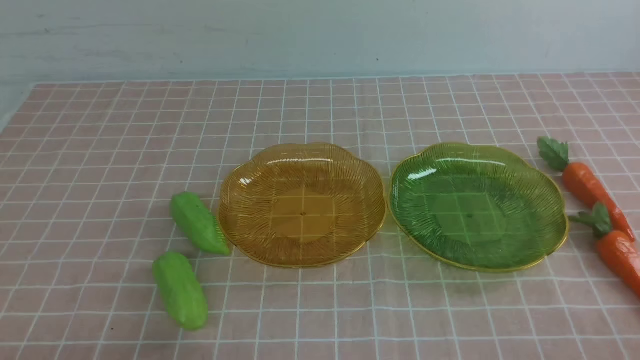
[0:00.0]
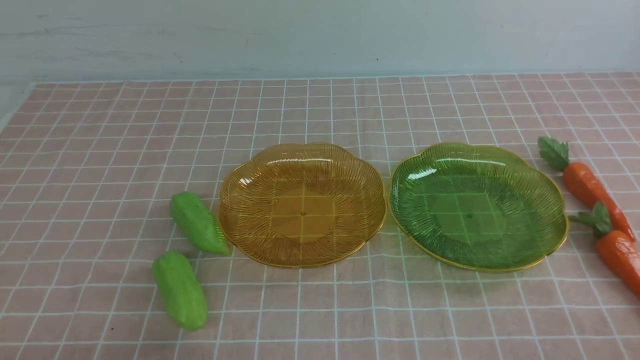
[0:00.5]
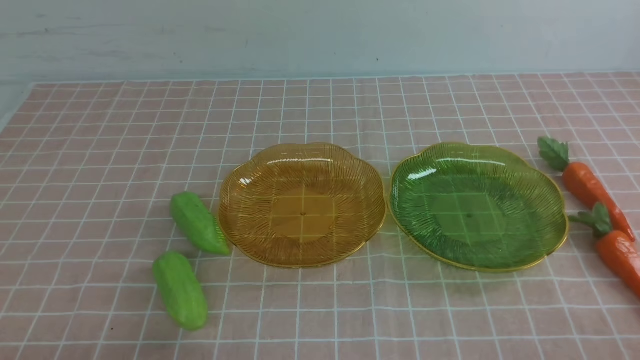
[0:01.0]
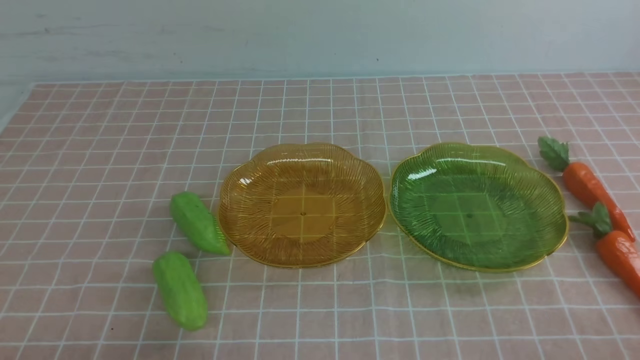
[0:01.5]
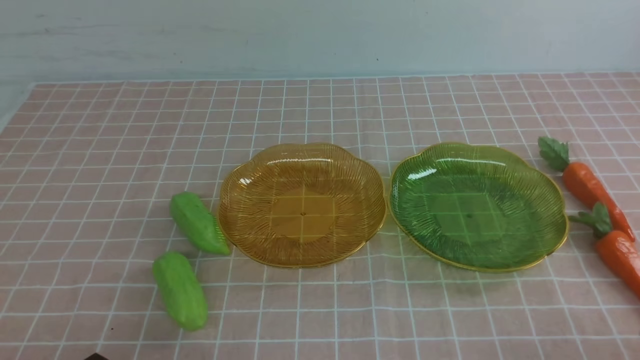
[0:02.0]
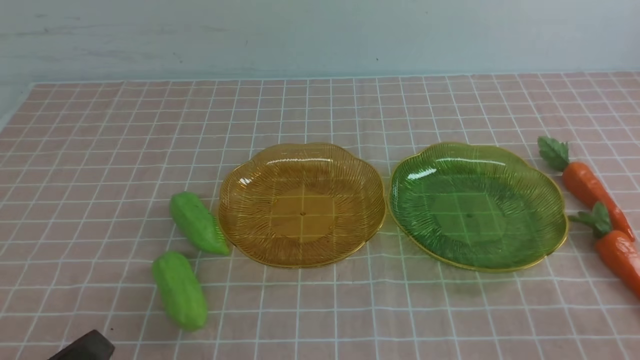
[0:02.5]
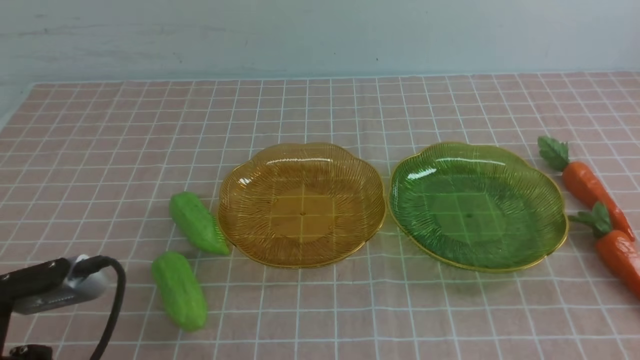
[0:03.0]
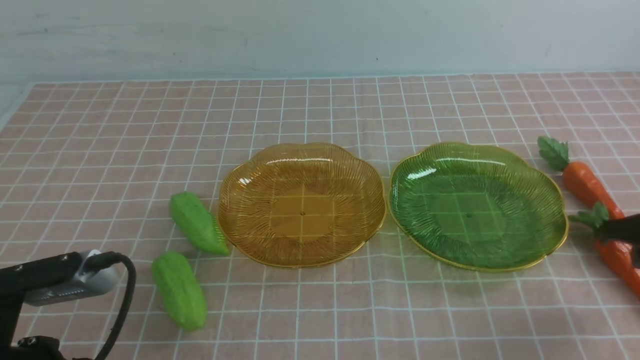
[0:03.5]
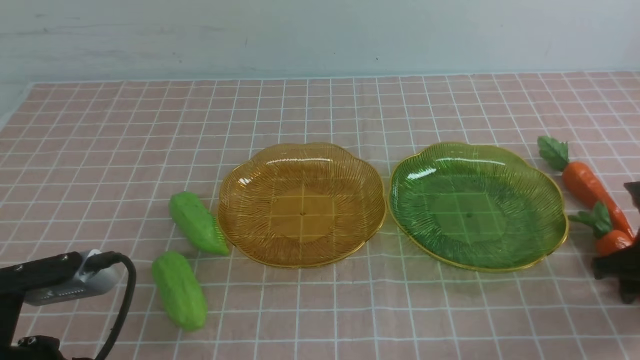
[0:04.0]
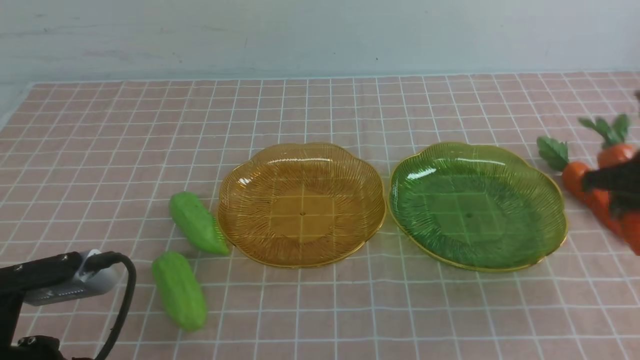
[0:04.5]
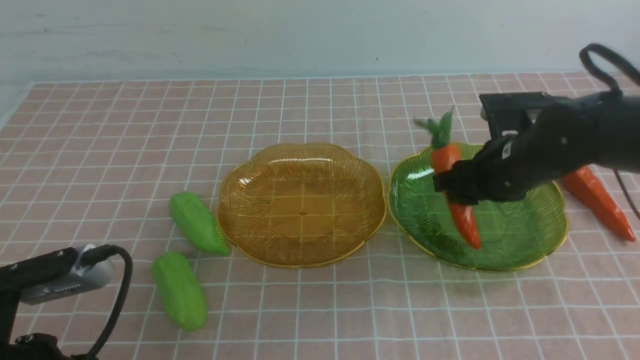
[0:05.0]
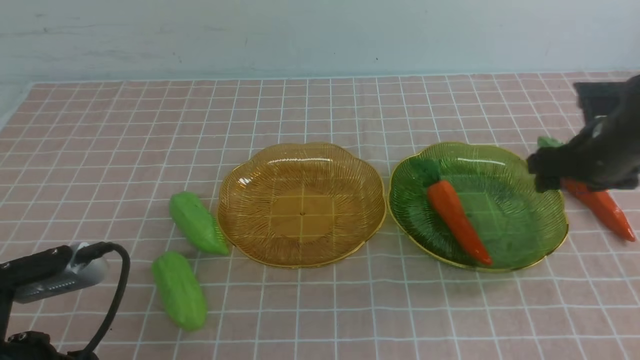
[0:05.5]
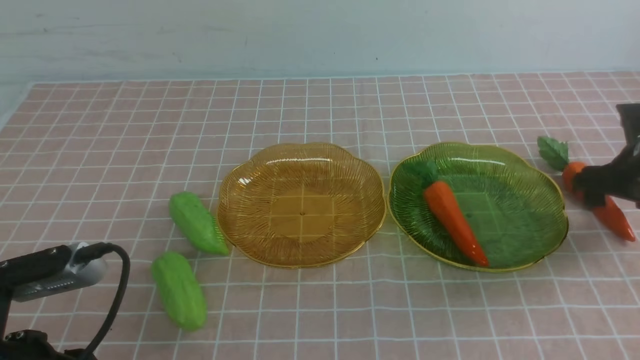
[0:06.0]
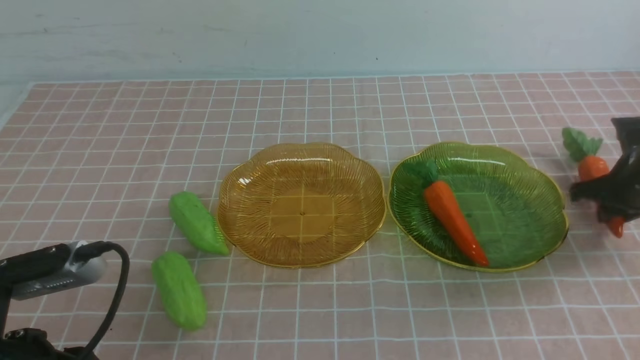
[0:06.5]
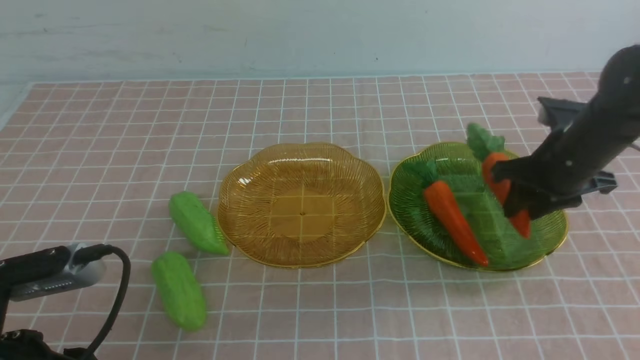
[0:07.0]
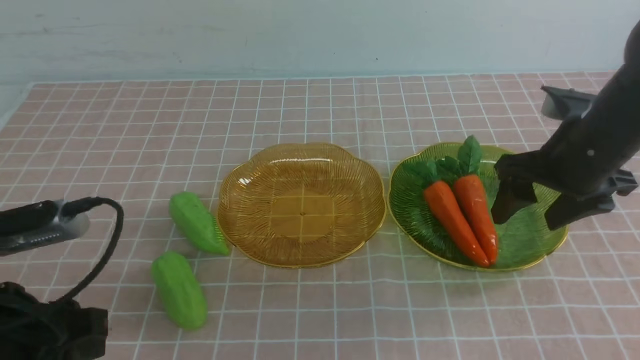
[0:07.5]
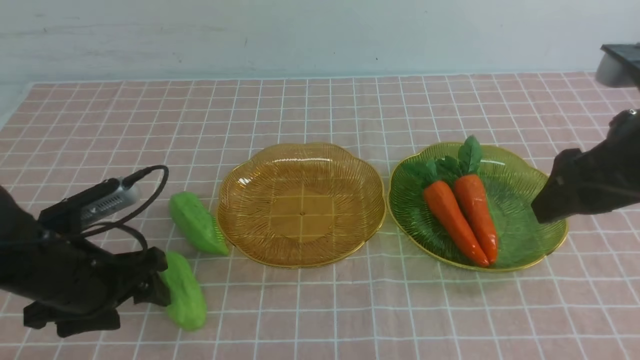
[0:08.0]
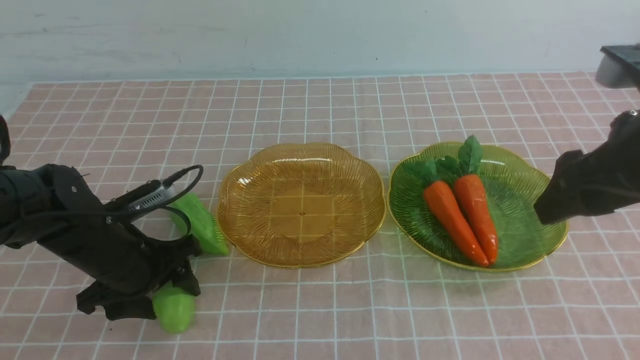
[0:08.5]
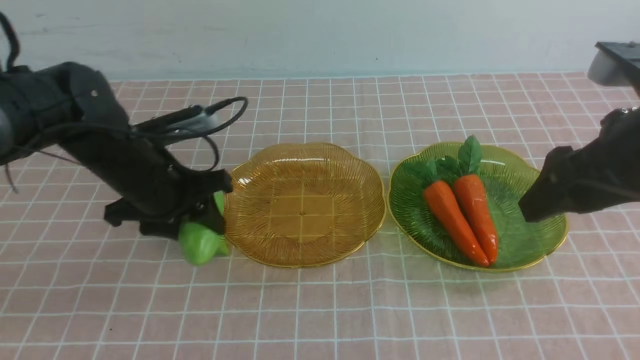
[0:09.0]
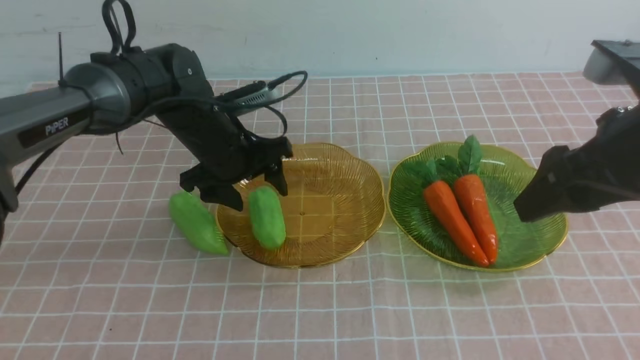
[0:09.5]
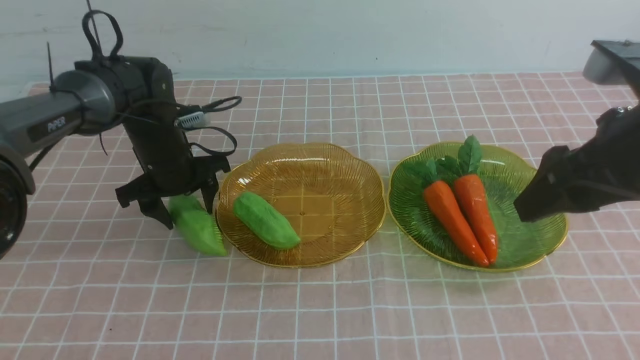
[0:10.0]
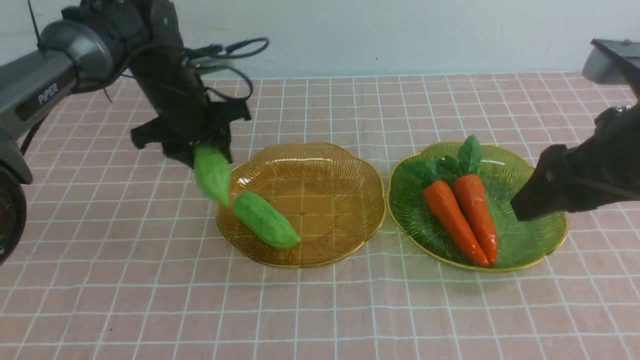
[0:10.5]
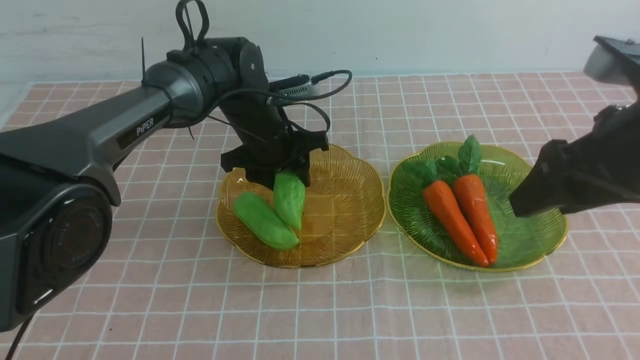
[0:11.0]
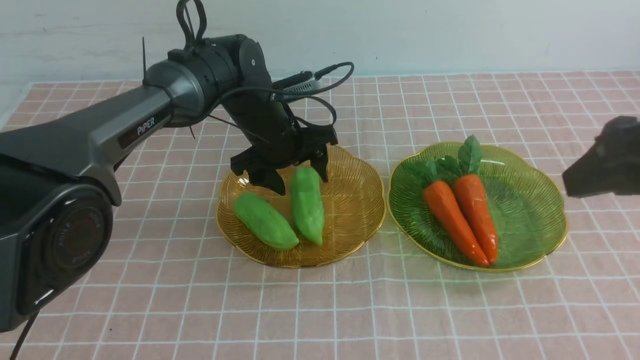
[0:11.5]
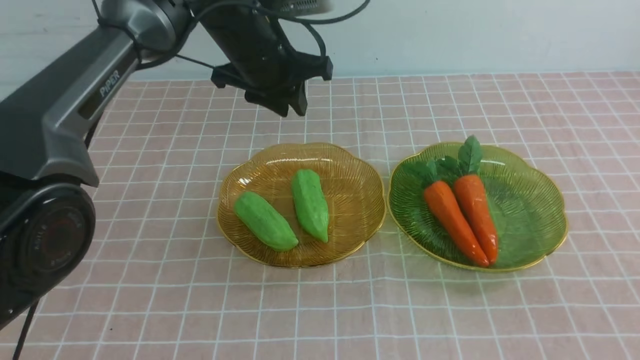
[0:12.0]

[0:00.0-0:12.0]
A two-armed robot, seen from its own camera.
Step, 0:00.0 to 0:07.0: use the right arm to grab a carrot and put it into the right plate.
Step, 0:07.5 to 0:11.5: use the left arm to grab a chayote and put it into the left plate.
0:02.0 to 0:04.0: The left gripper is displaced upward and forward by about 10 cm. The right gripper moves forward, some 25 cm, and opens.
0:04.0 to 0:06.0: The right gripper goes left and right, roughly 15 cm each way, reversing 2 times, and opens and closes again.
0:06.0 to 0:08.0: The right gripper shifts approximately 20 cm backward, upward and to the left, and opens its fingers. The left gripper is displaced forward by about 20 cm, and opens, then closes again.
0:08.0 to 0:10.0: The left gripper travels forward and to the right by about 20 cm.
0:10.0 to 0:12.0: The left gripper moves upward, about 15 cm, and closes up. The right gripper moves backward and downward, approximately 20 cm, and closes.

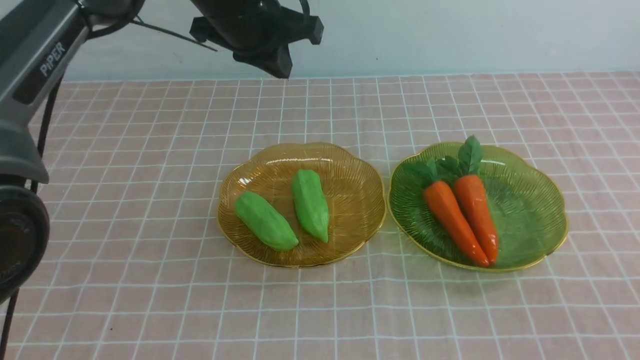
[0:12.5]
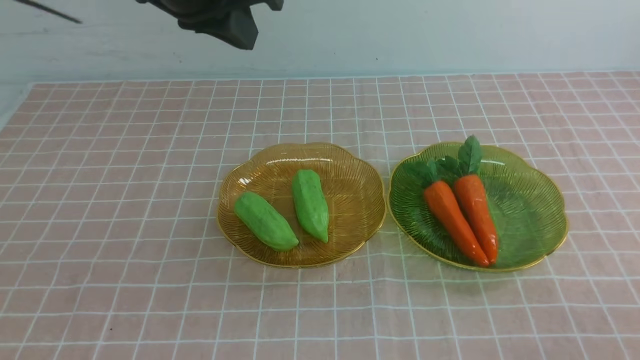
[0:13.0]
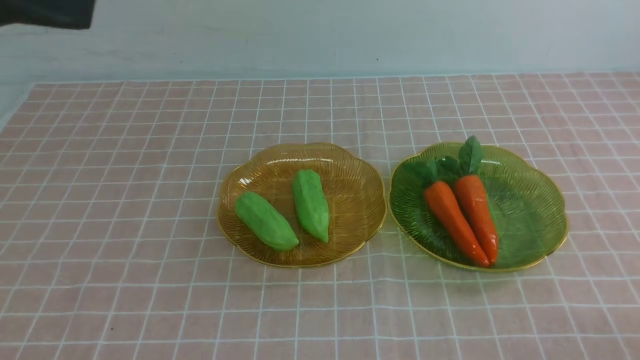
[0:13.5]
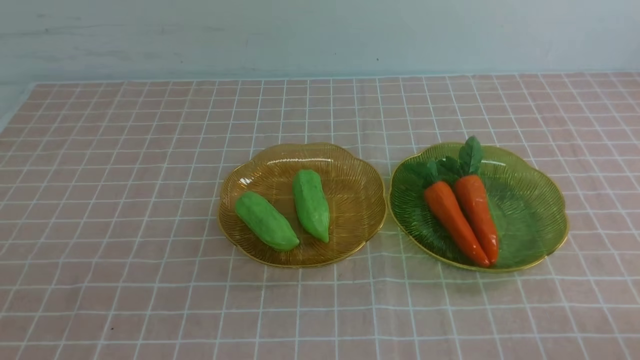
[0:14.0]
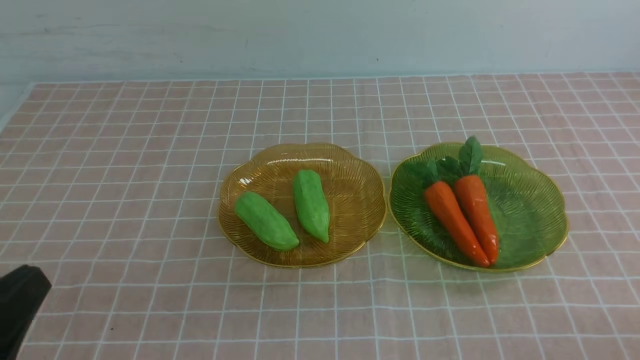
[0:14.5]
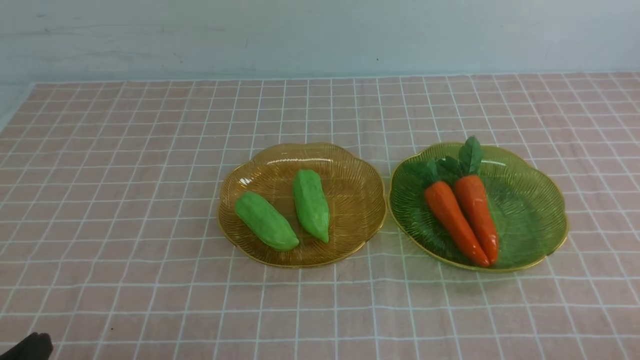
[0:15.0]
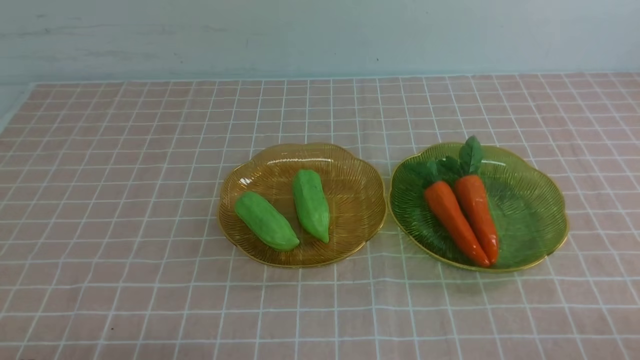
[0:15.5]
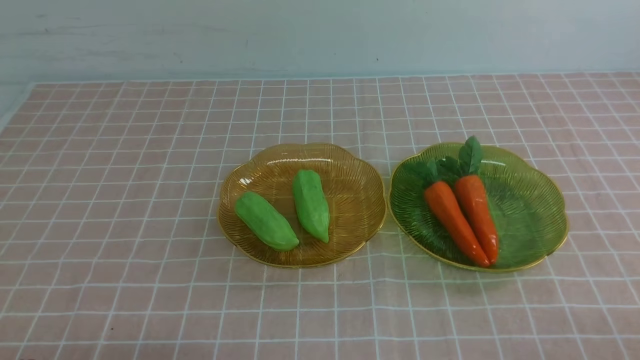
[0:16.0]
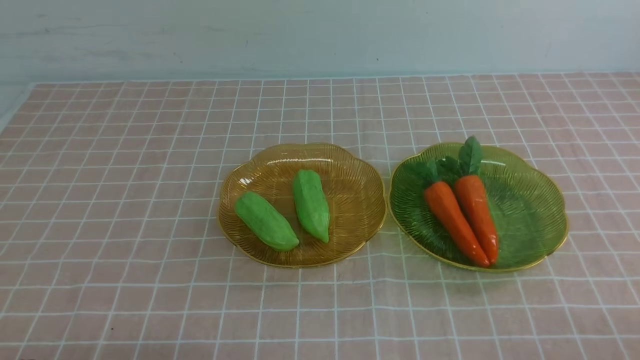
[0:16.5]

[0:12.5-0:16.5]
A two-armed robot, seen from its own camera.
0:12.5 to 0:14.5: The left gripper travels downward and backward by approximately 35 cm.
0:14.5 to 0:16.5: The grippers stay close to where they were, moving slightly.
